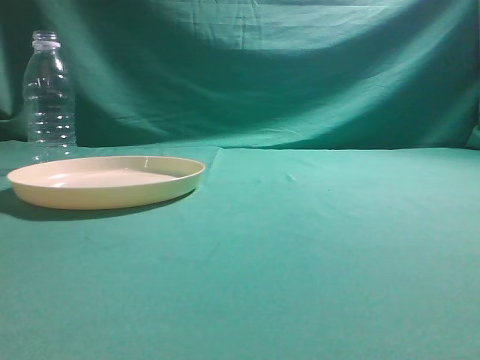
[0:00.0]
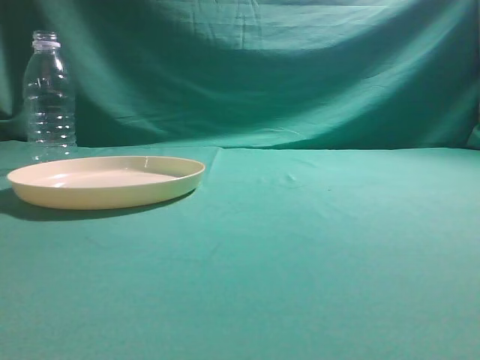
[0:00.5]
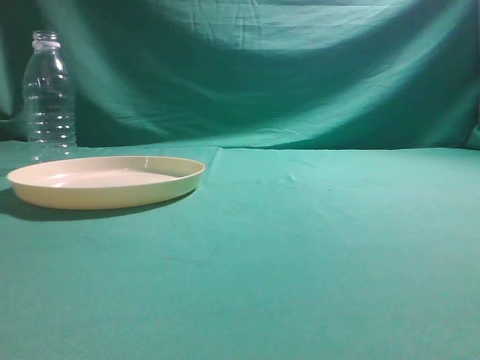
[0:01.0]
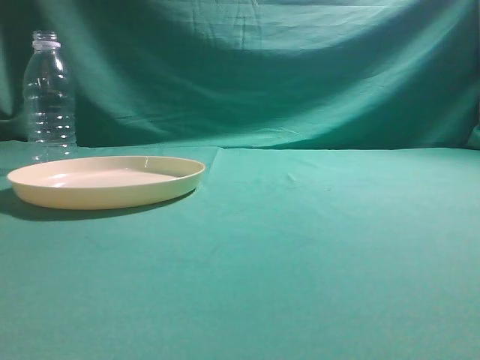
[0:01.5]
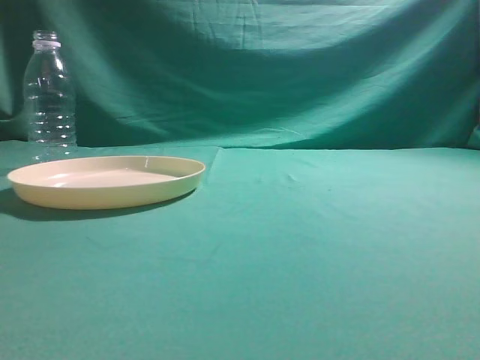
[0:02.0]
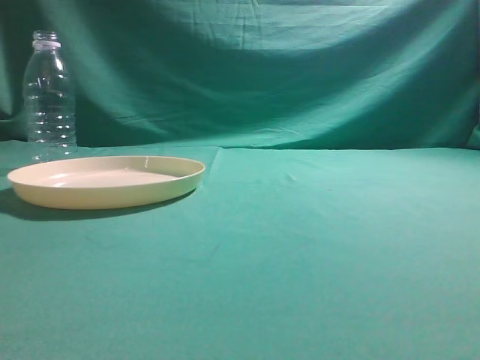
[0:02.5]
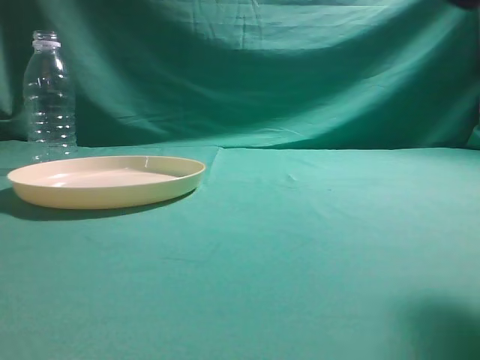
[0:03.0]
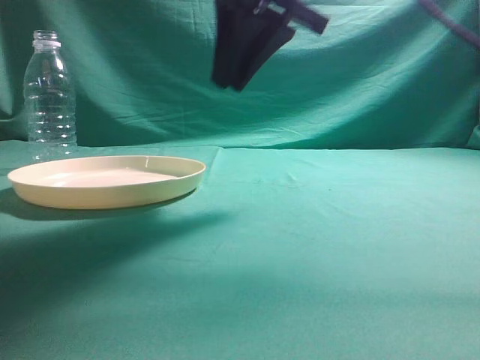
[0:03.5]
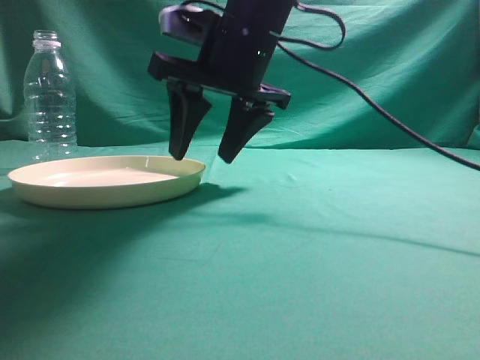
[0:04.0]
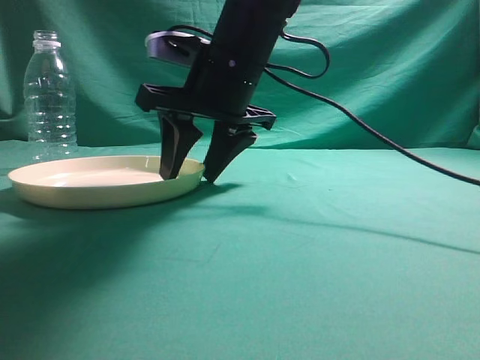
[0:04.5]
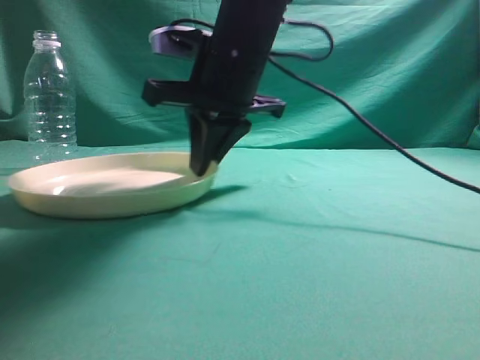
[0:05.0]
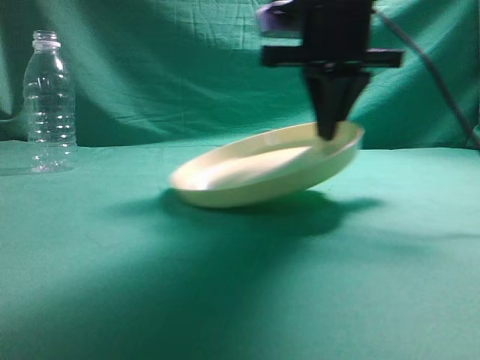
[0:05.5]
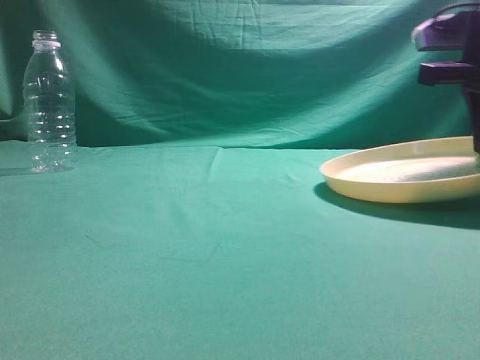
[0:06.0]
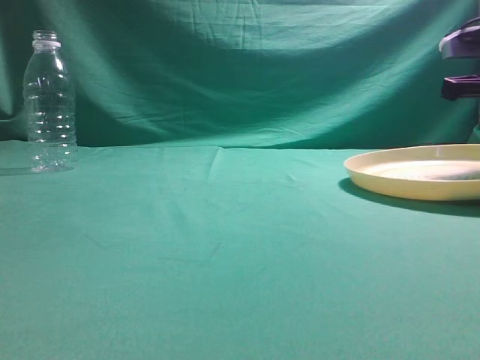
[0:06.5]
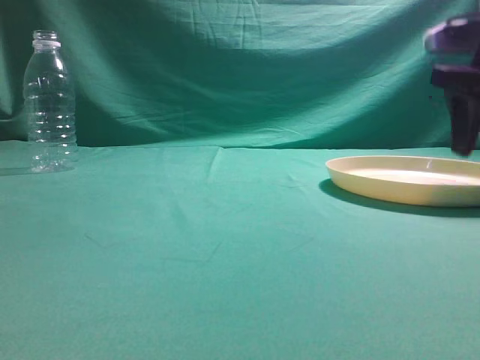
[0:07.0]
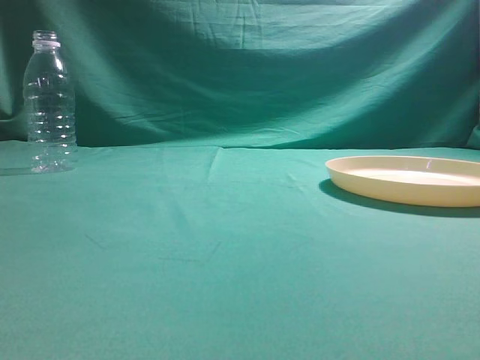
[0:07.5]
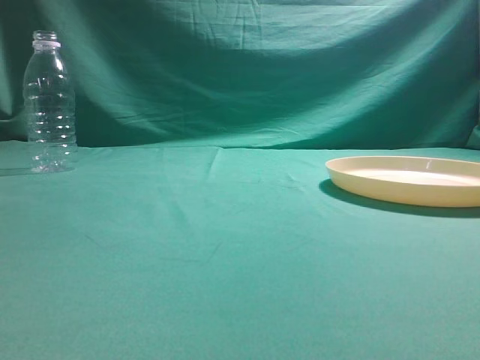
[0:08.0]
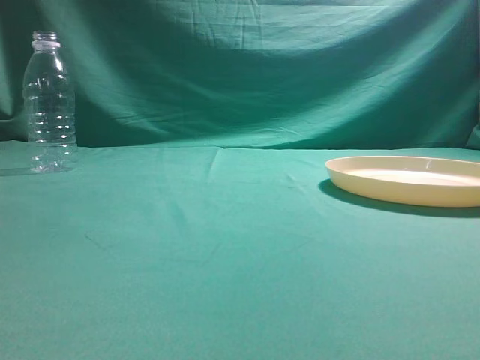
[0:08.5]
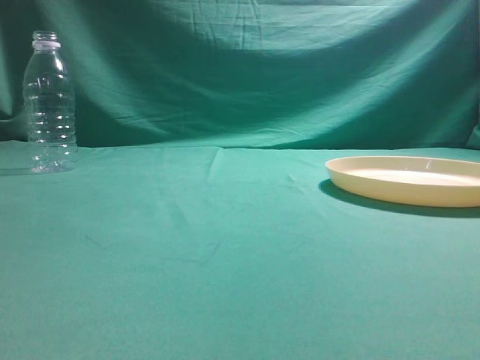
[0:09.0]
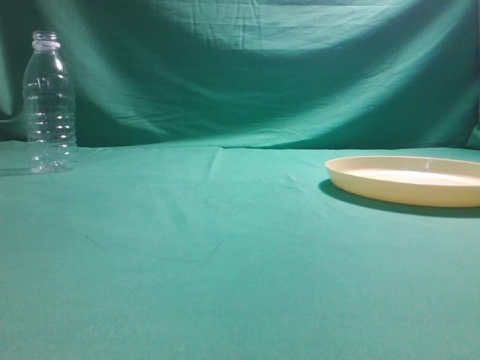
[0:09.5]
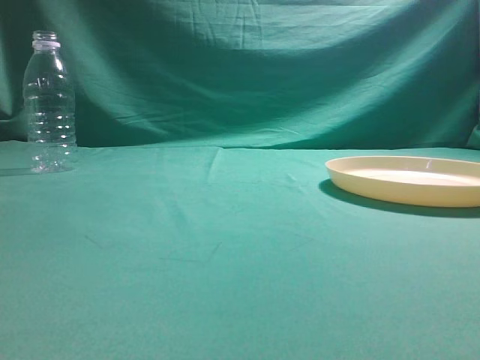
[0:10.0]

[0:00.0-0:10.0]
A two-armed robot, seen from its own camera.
Step, 0:00.0 to 0:05.0: Pick the container that can hold fruits.
Step, 0:05.5 to 0:07.5: Move the picked object to the right side of the table.
0:02.0 to 0:04.0: The right gripper travels forward and to the left by some 40 cm, and opens.
0:04.0 to 0:06.0: The right gripper heads to the right, covering some 20 cm, and closes up.
0:06.0 to 0:08.0: The right gripper moves upward and backward, approximately 30 cm, and opens and closes again.
